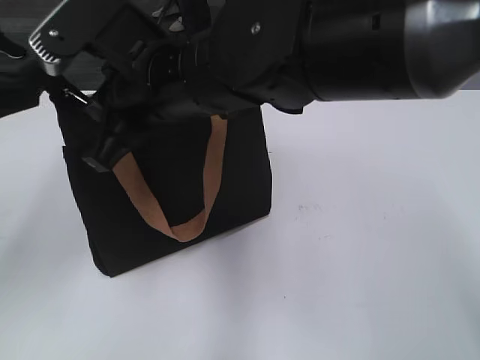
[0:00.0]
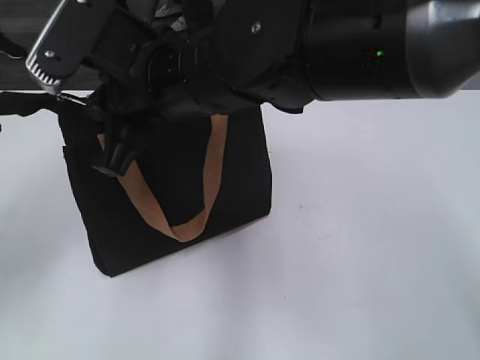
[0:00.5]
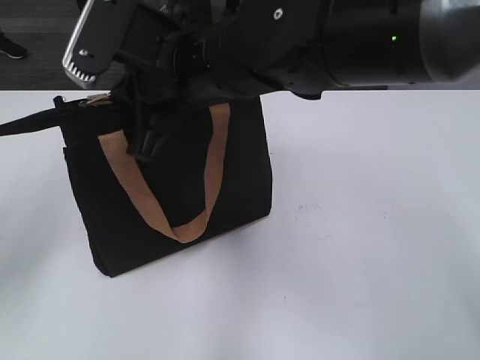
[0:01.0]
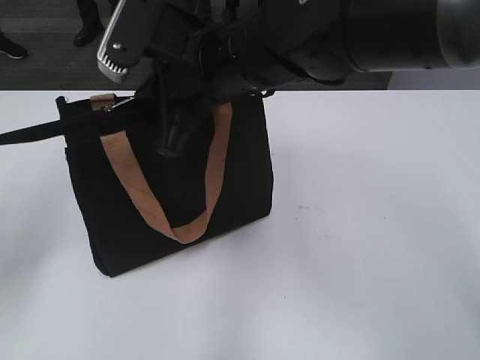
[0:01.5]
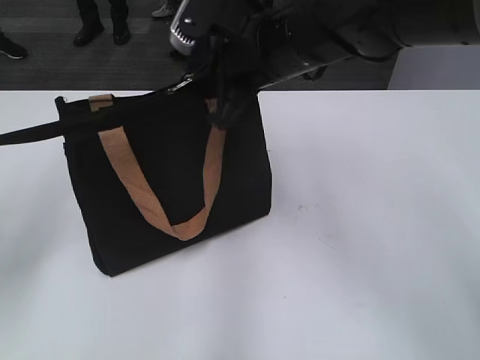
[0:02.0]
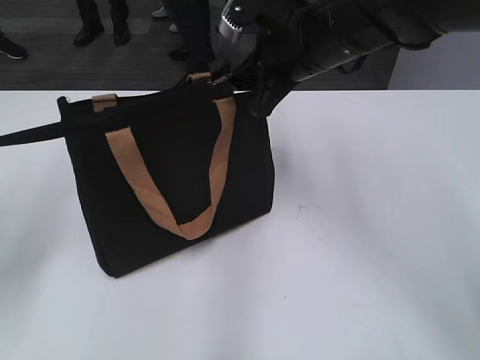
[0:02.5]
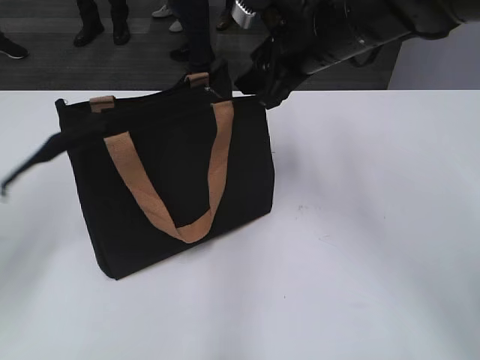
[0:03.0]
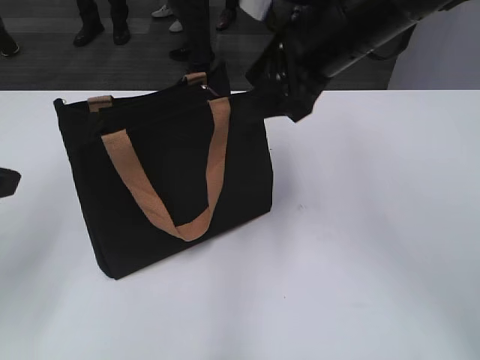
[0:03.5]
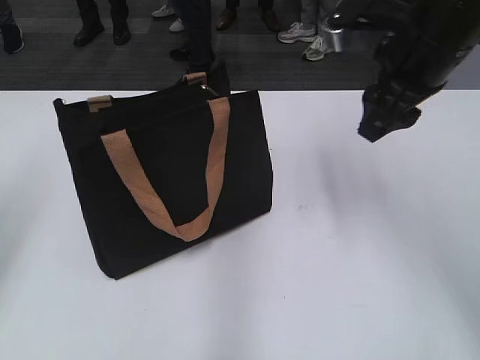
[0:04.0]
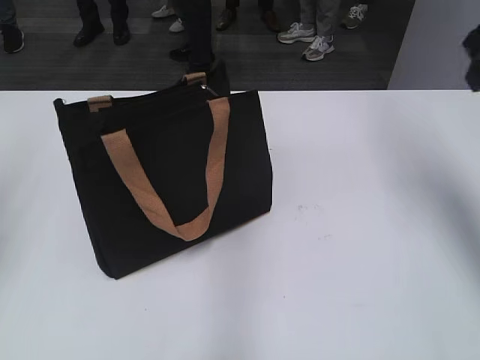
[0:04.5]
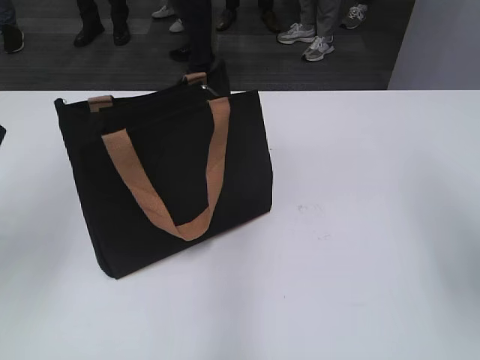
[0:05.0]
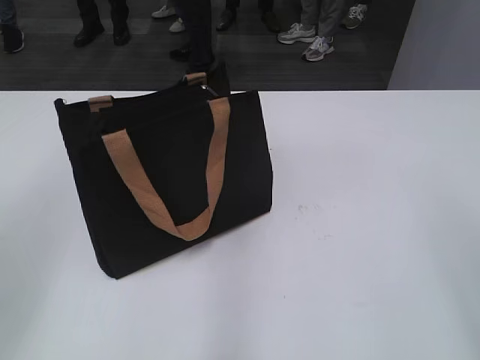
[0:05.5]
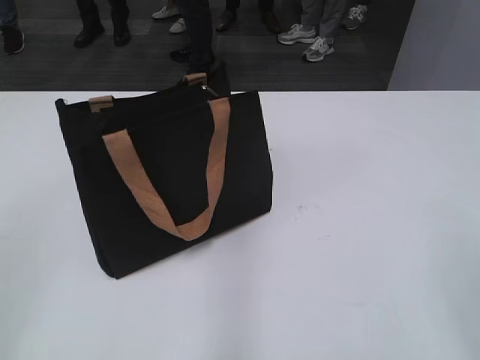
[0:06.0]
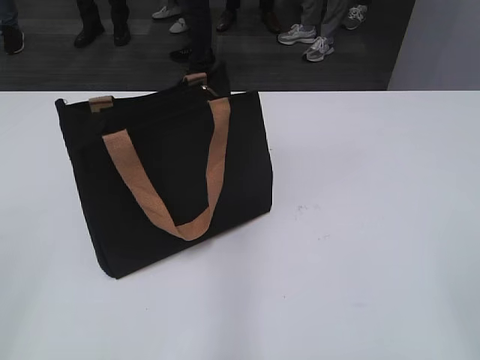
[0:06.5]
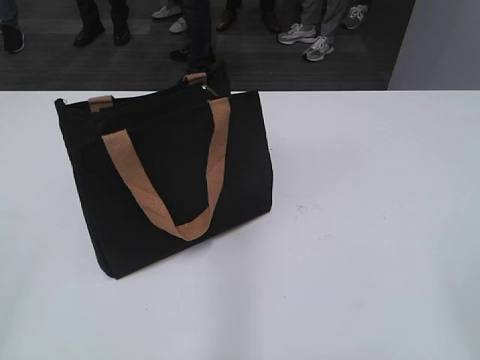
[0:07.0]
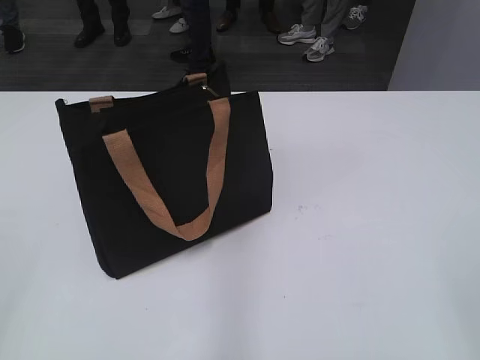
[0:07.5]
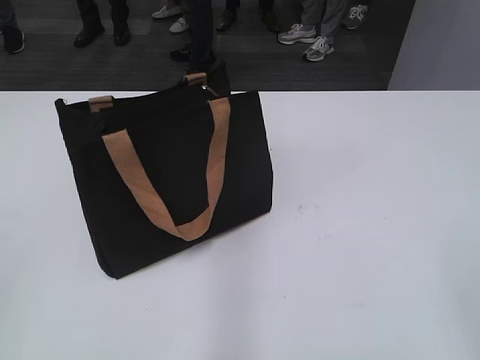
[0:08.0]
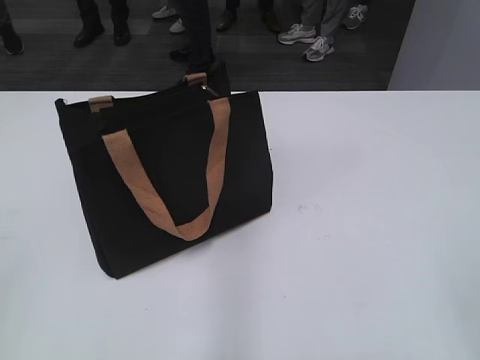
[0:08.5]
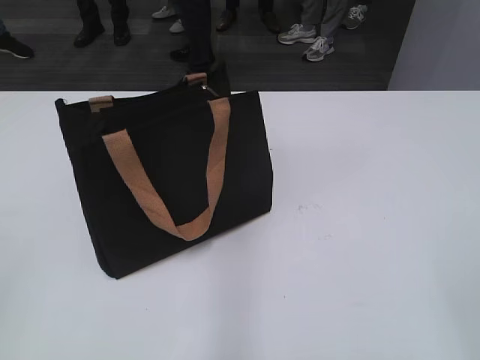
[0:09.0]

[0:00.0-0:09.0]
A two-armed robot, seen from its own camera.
Step, 0:00.0 to 0:02.5: Zip up the bag with your right hand.
0:00.0 to 0:02.0: The right gripper shifts about 10 cm to the right and forward.
0:02.0 to 0:04.5: The right gripper heads to the right, covering roughly 20 cm, and opens. Meanwhile the left gripper changes place by about 5 cm, and opens.
0:04.5 to 0:07.0: Both grippers travel together backward, roughly 30 cm.

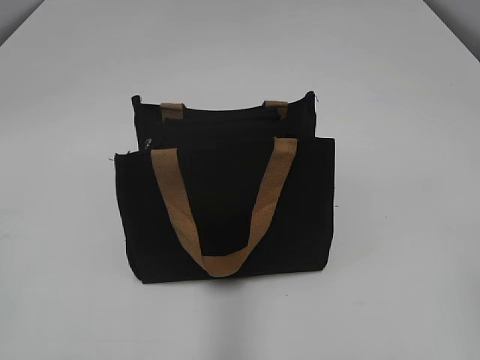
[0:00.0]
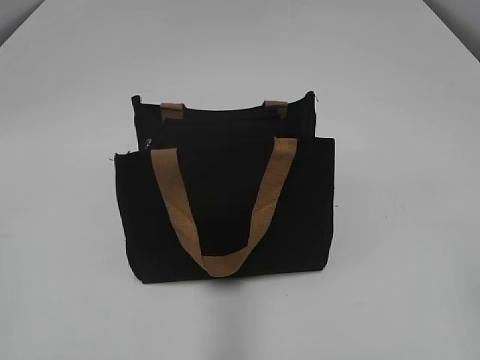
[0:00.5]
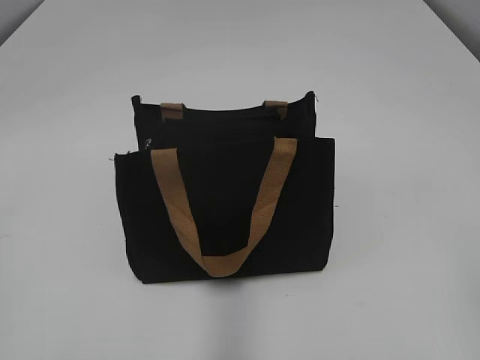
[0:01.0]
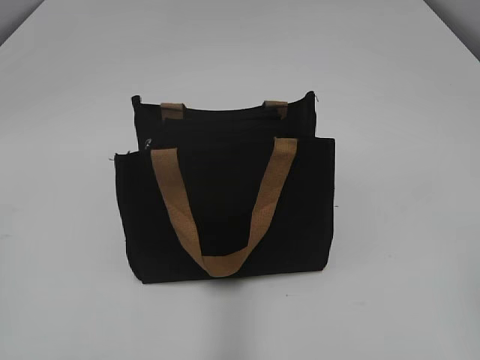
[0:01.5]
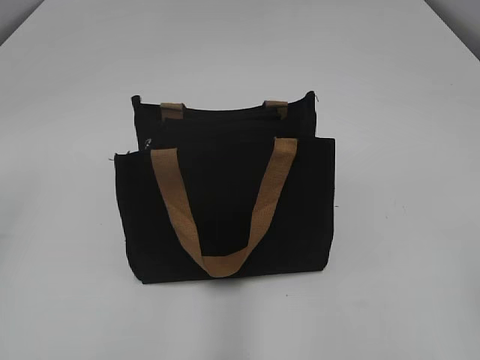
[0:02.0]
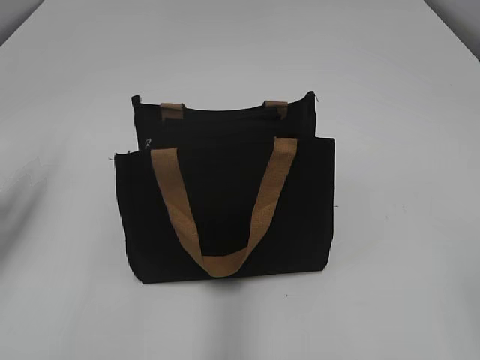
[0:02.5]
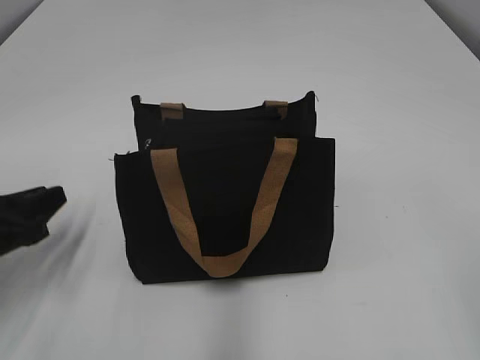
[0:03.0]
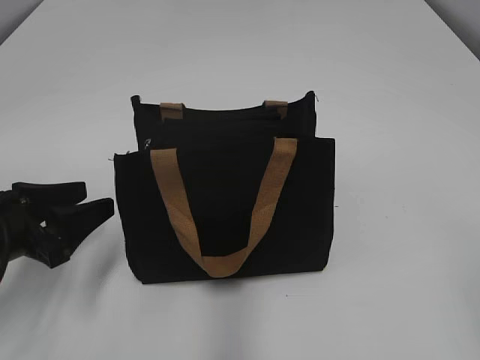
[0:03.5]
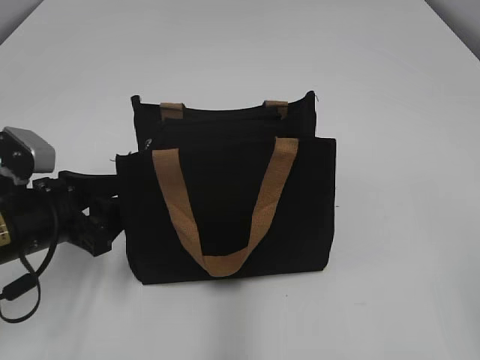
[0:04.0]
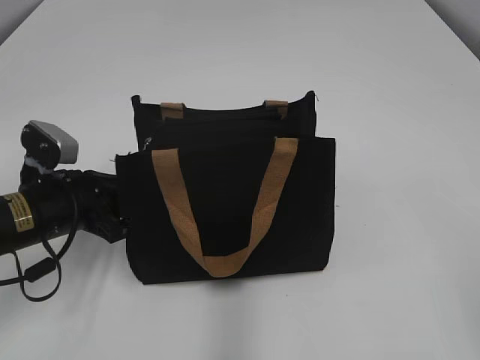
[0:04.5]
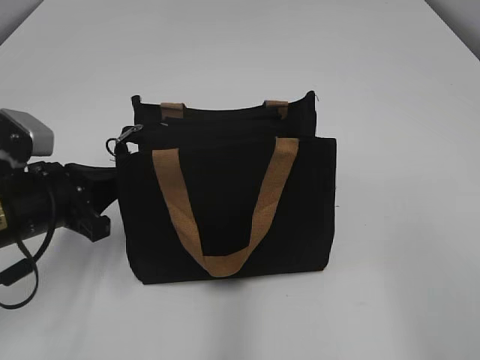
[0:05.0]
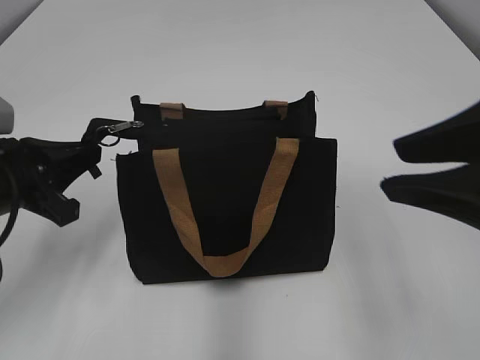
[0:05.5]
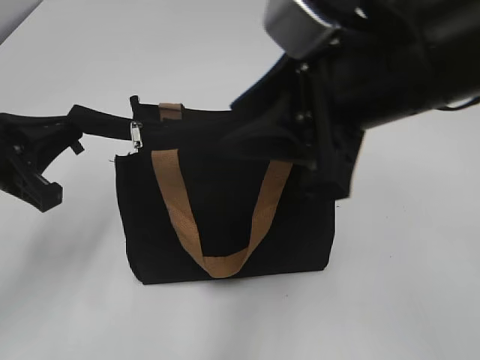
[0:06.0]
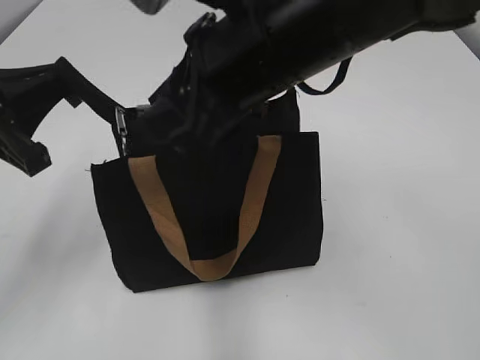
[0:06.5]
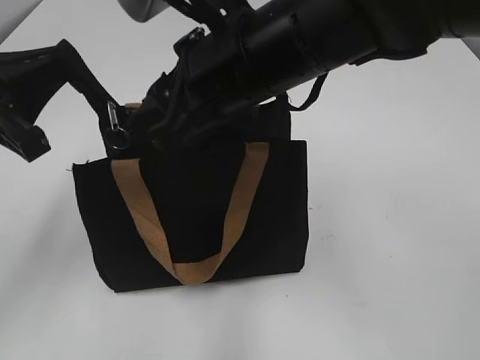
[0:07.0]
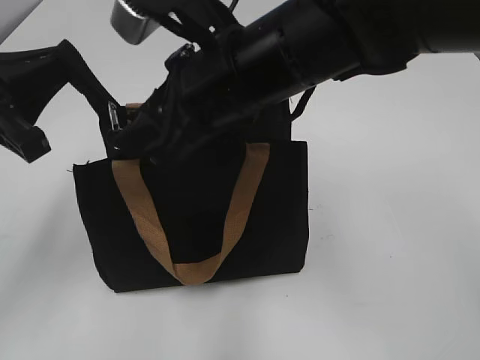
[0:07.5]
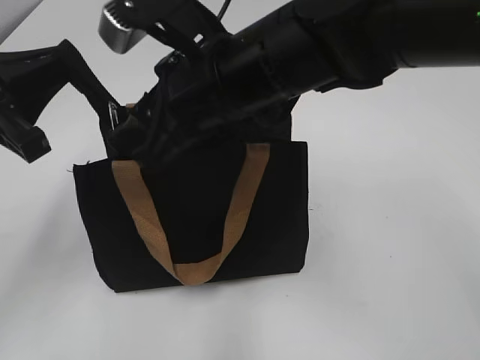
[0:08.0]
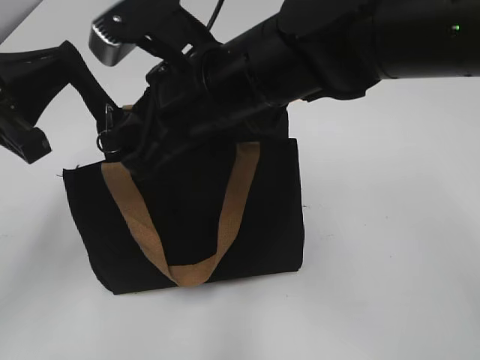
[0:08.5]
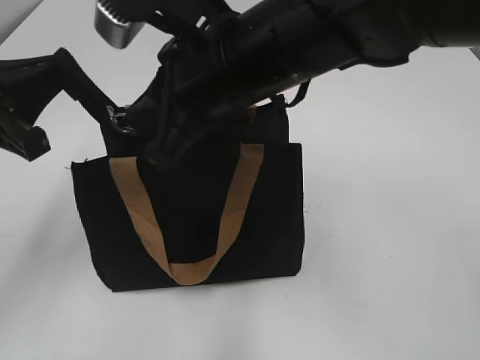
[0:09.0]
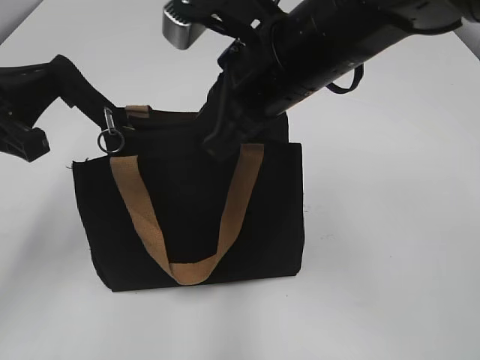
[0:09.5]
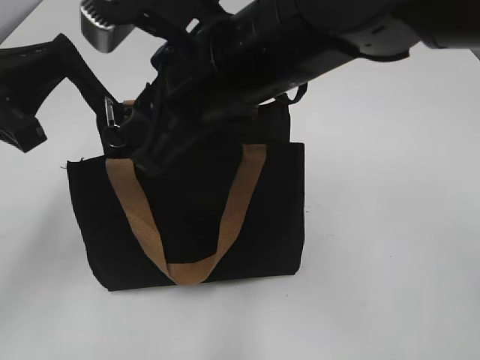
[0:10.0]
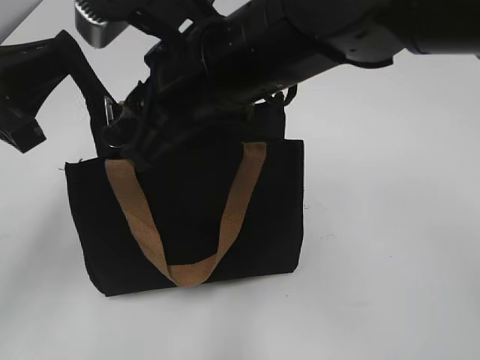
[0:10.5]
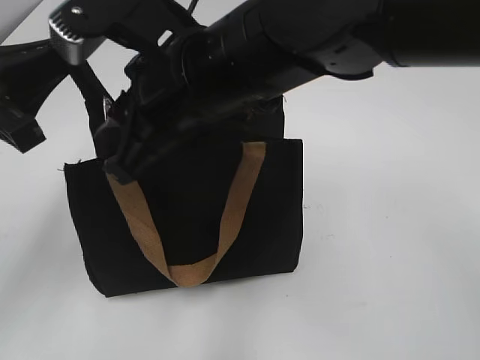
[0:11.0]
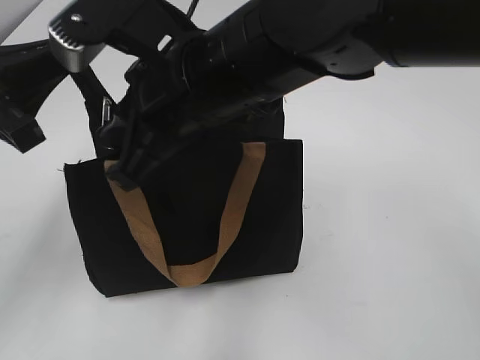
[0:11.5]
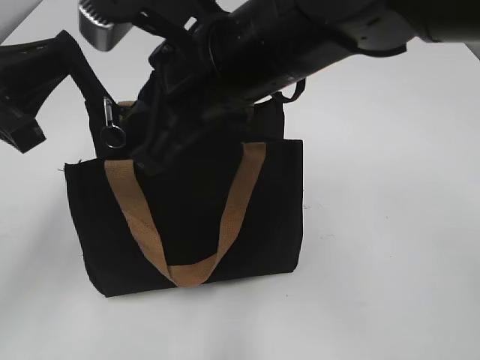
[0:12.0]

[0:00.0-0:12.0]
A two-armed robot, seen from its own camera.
0:02.0 to 0:04.0: The left gripper travels downward, forward and to the right by approximately 30 cm, and opens up.
0:04.0 to 0:06.0: The left gripper shifts roughly 10 cm upward, and closes; the right gripper goes roughly 25 cm forward and to the left.
0:06.0 to 0:08.0: The right gripper shifts approximately 15 cm to the left, forward and downward.
0:08.0 to 0:10.0: The right gripper closes, then opens again.
0:10.0 to 0:12.0: The right gripper closes.

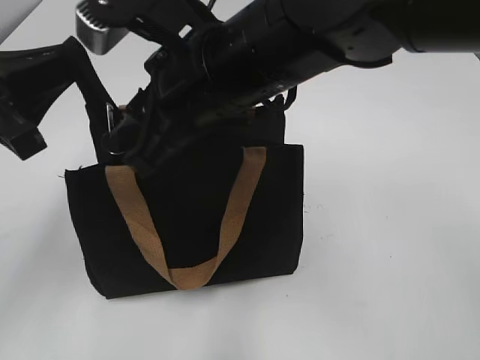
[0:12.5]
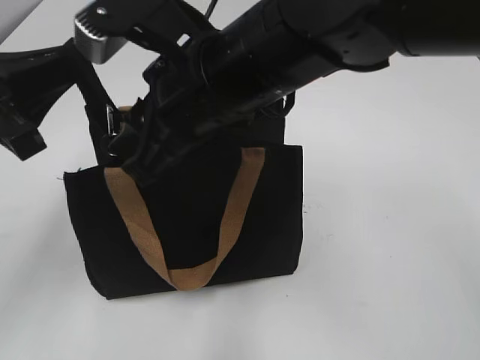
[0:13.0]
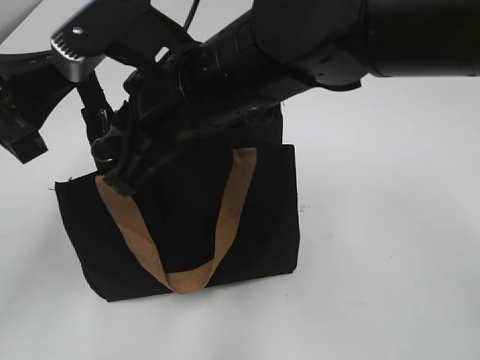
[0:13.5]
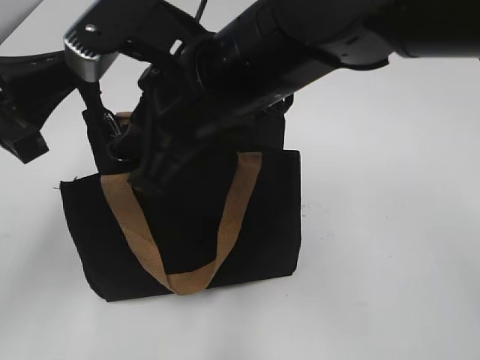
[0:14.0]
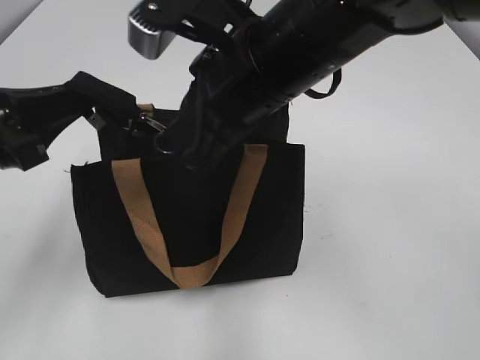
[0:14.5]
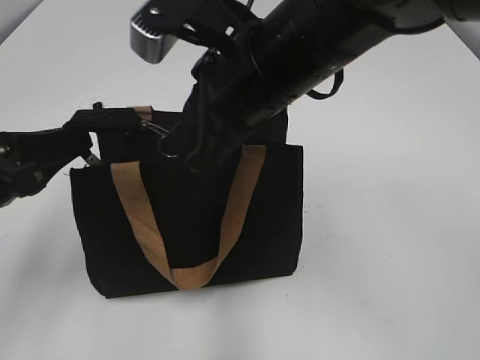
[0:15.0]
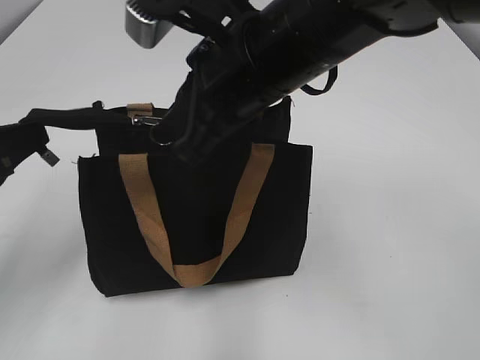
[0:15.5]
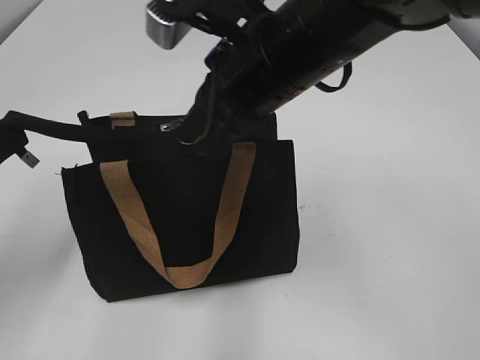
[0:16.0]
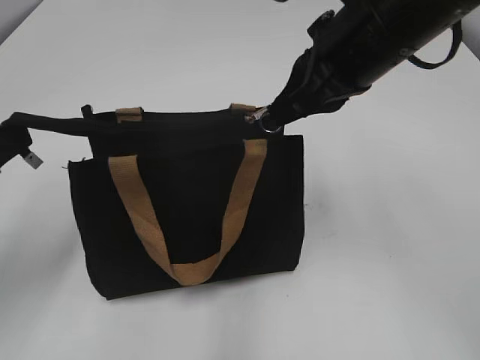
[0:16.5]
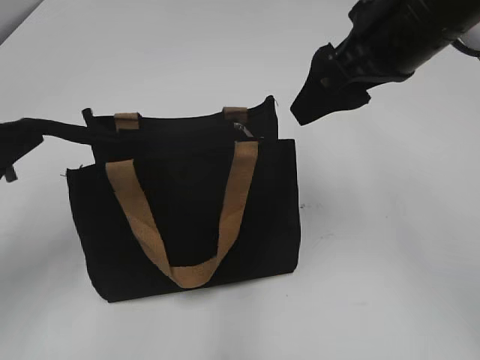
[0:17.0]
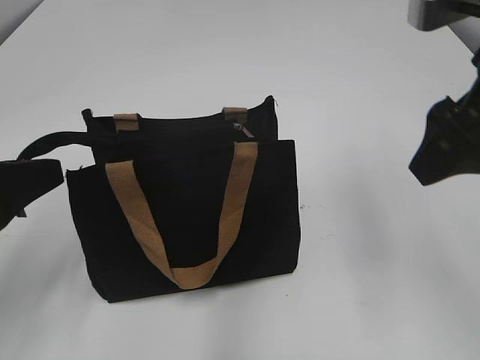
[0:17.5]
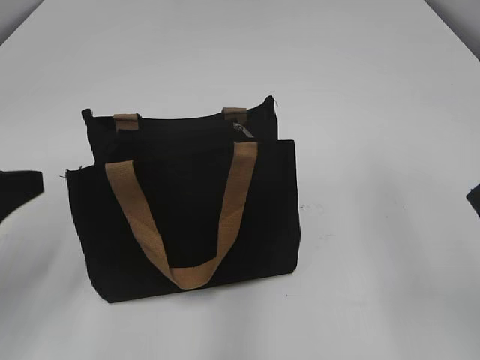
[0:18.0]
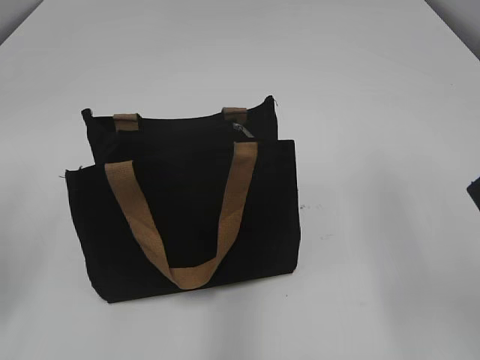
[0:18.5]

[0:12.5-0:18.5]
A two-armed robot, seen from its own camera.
Step, 0:12.5 to 0:16.5: Zip up the bag with your right hand.
Step, 0:17.0 to 0:17.5: Grab the zipper with your left hand.
0:12.5 to 0:14.5: The right gripper closes.
0:14.5 to 0:16.5: The right gripper is displaced to the right by approximately 10 cm.
0:16.5 to 0:18.5: The right gripper is displaced backward and to the right by approximately 15 cm, and opens; the left gripper opens.
